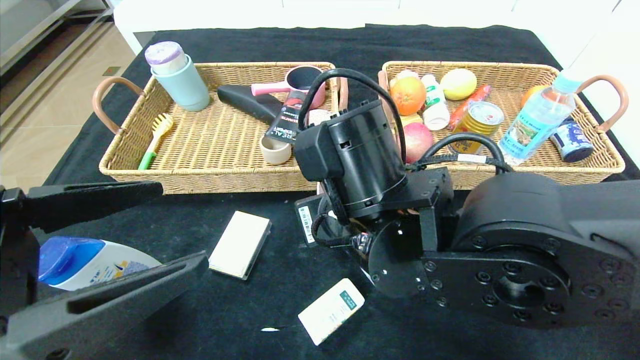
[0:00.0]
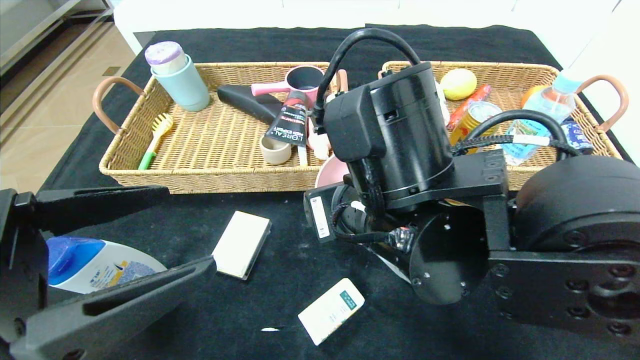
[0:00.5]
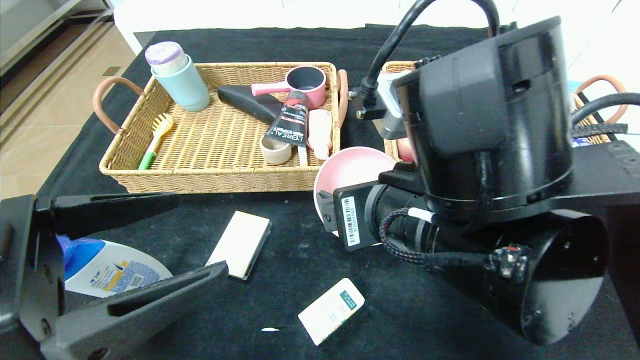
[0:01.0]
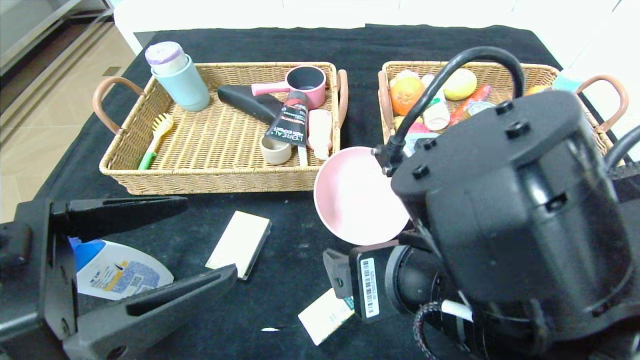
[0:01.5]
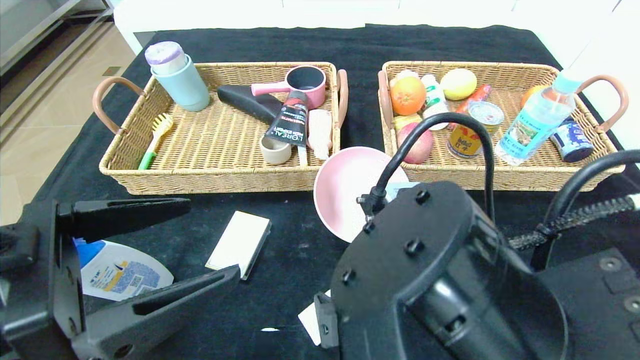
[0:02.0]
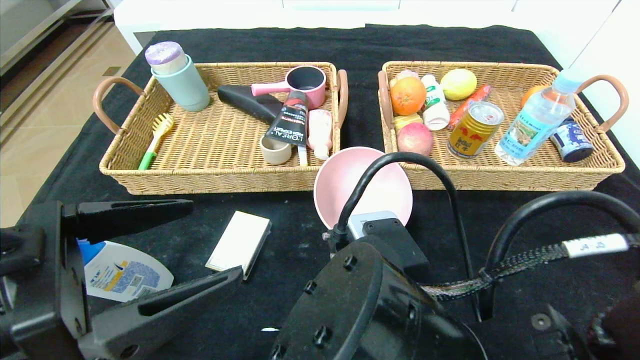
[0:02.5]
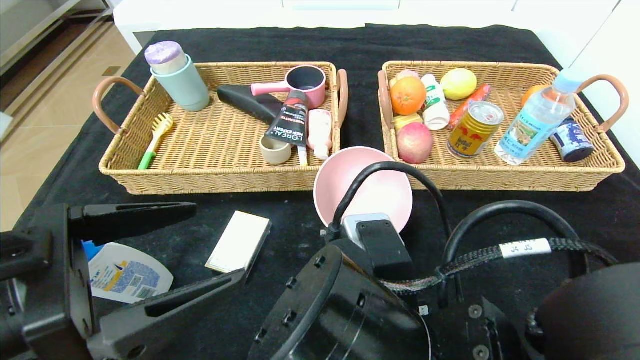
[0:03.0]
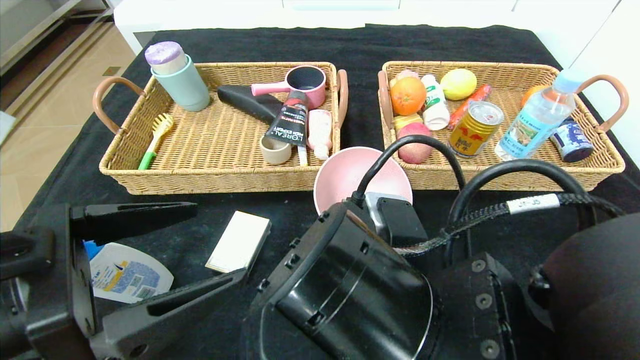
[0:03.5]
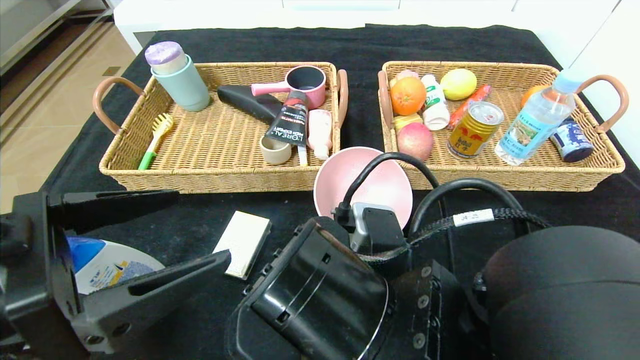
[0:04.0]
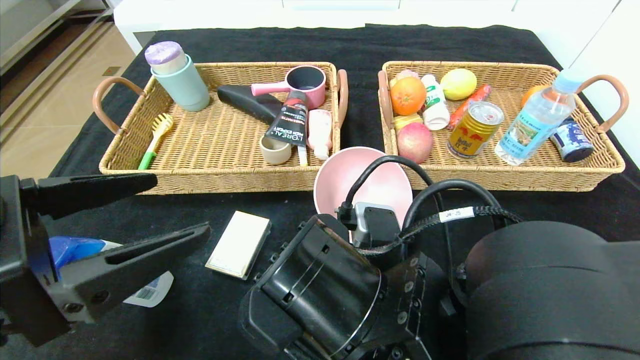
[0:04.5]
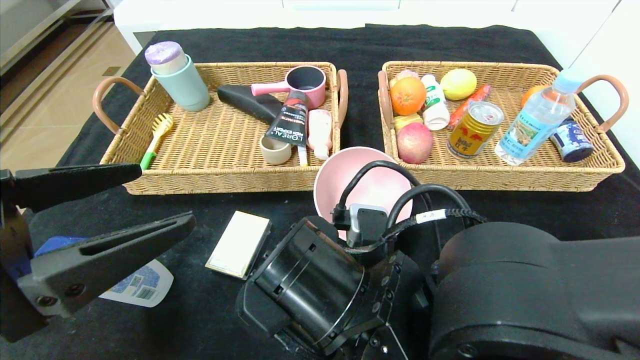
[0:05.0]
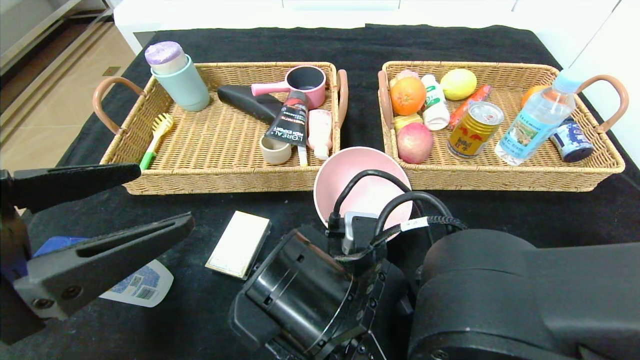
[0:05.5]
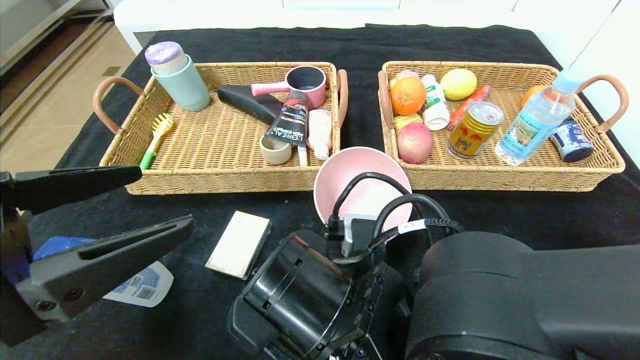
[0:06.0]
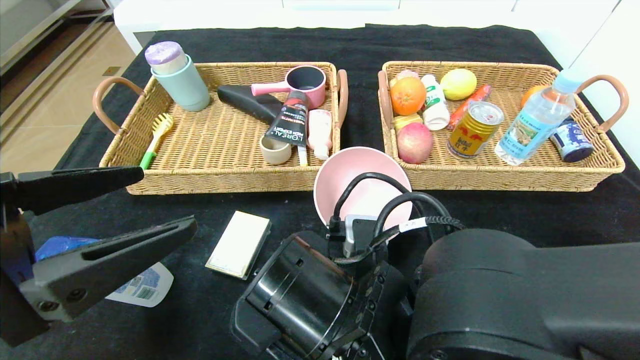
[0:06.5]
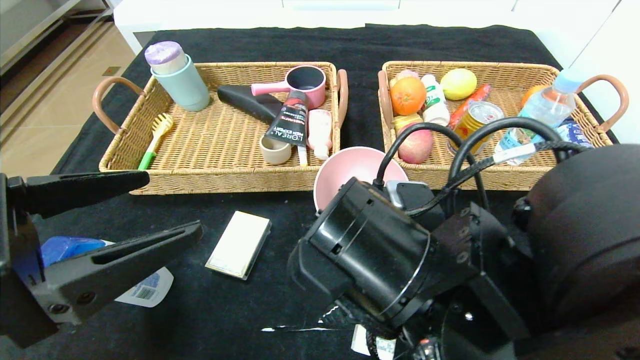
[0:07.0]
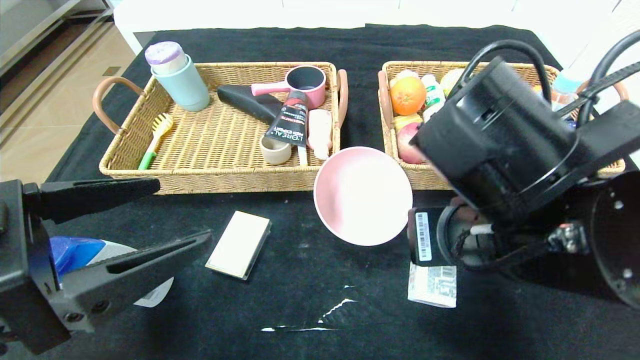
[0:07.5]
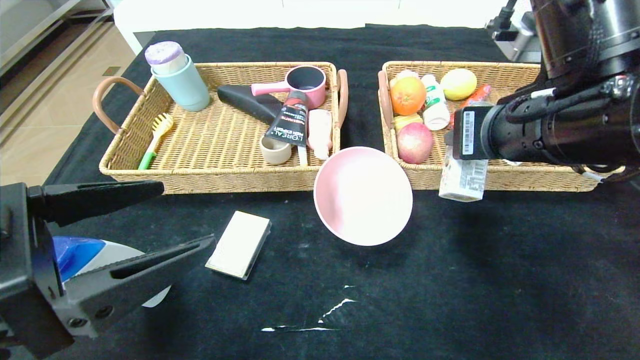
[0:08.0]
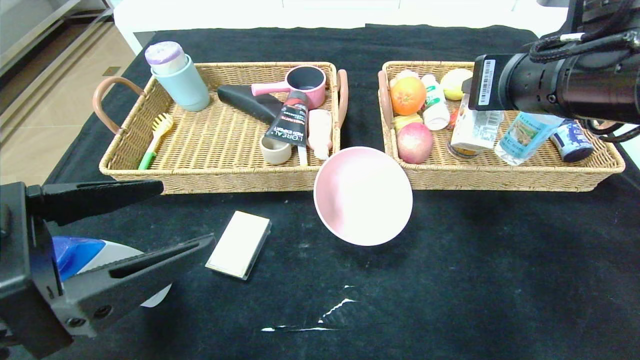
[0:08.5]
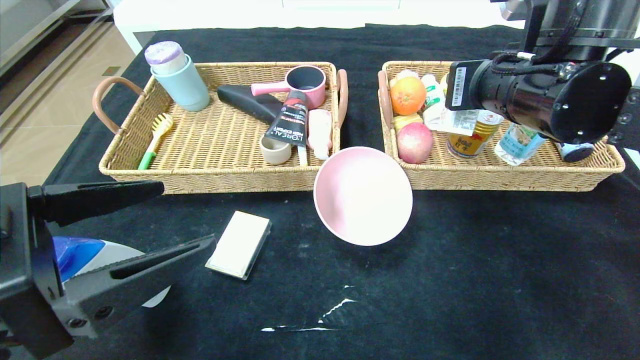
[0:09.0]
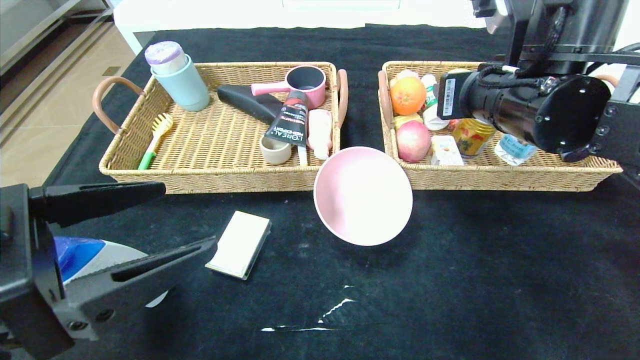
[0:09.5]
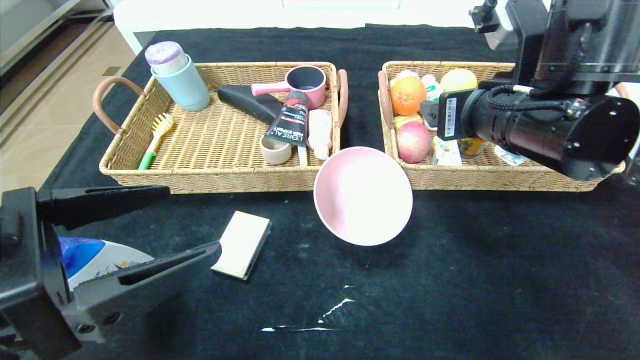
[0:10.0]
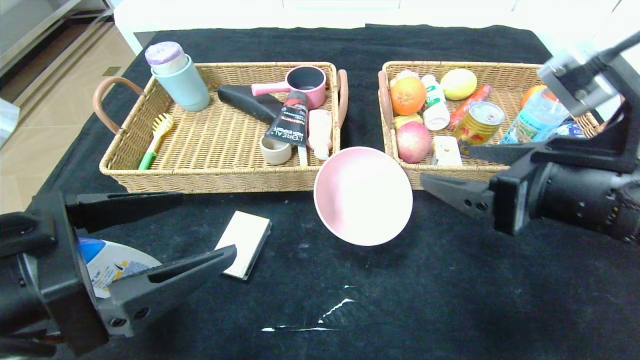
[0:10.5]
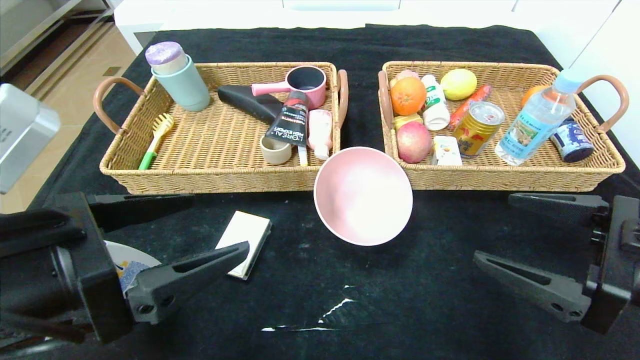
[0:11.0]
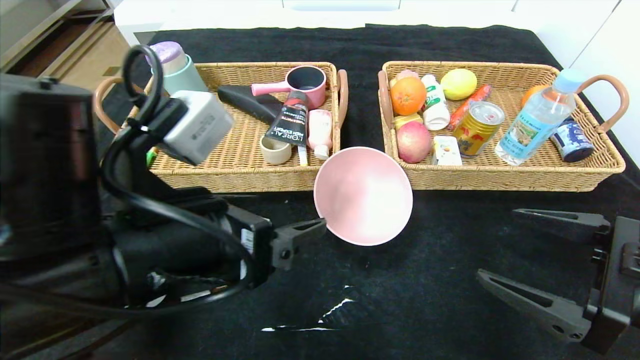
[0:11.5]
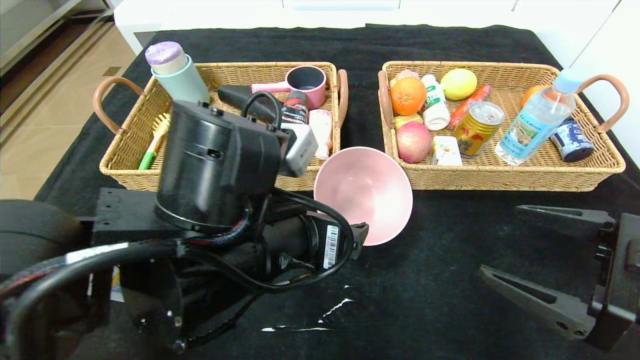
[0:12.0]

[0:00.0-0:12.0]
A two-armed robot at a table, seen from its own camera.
Step, 0:02.0 to 0:10.5: Pick up the square chewing gum and put it in the right basket.
0:00.0 to 0:02.0: The right gripper is displaced backward by roughly 10 cm, and opens its fingers.
0:02.0 to 0:04.0: The right gripper shifts by about 5 cm.
0:04.0 to 0:06.0: The right gripper closes up.
0:06.0 to 0:08.0: The right gripper shifts approximately 20 cm to the right, upward and forward.
0:08.0 to 0:10.0: The right gripper opens.
0:10.0 to 0:12.0: The left gripper moves to the right and forward, some 15 cm. The right gripper shifts about 20 cm backward, to the right and downward.

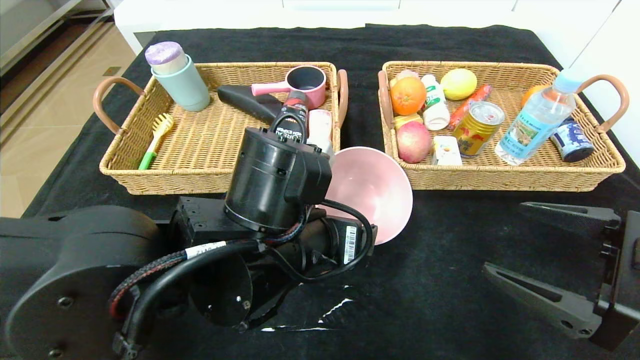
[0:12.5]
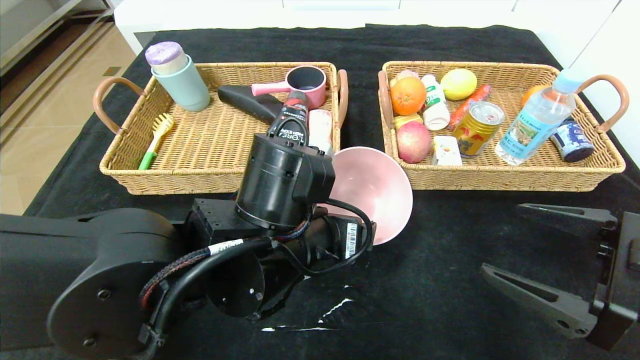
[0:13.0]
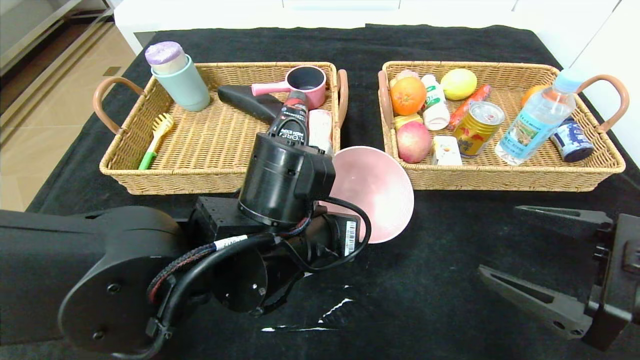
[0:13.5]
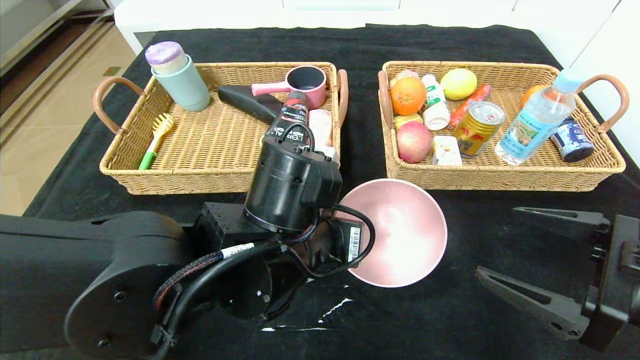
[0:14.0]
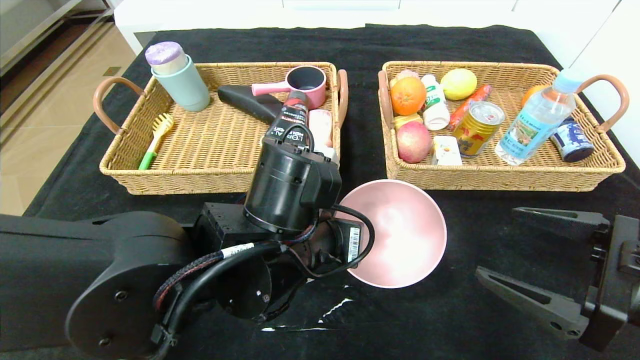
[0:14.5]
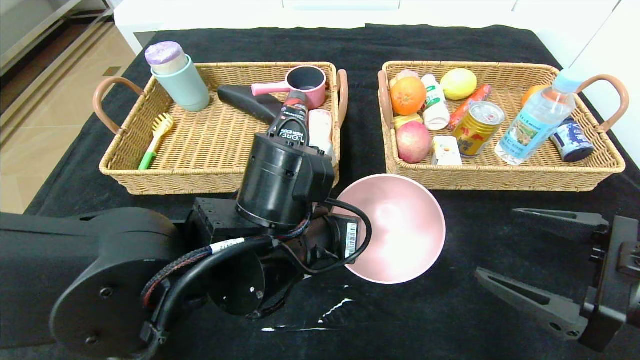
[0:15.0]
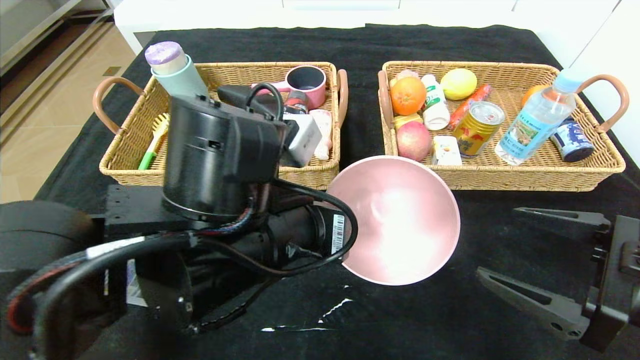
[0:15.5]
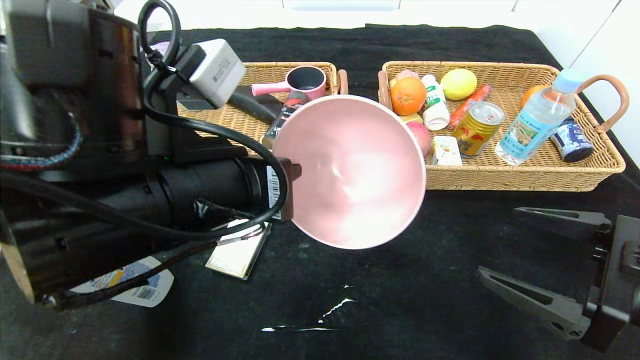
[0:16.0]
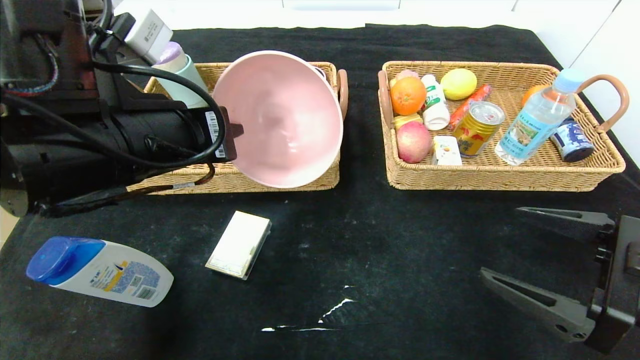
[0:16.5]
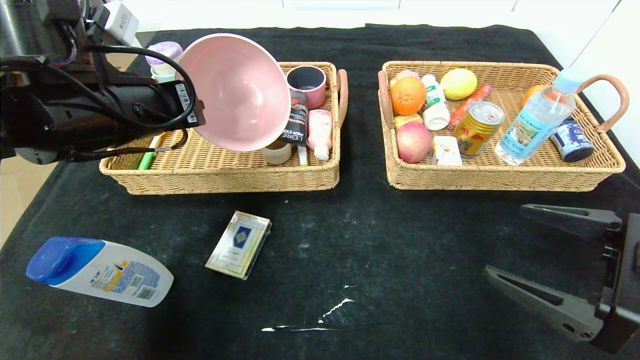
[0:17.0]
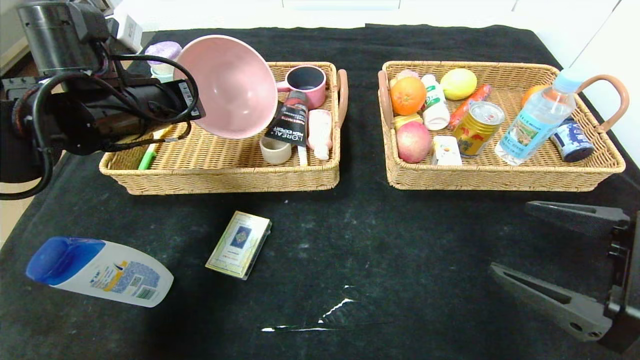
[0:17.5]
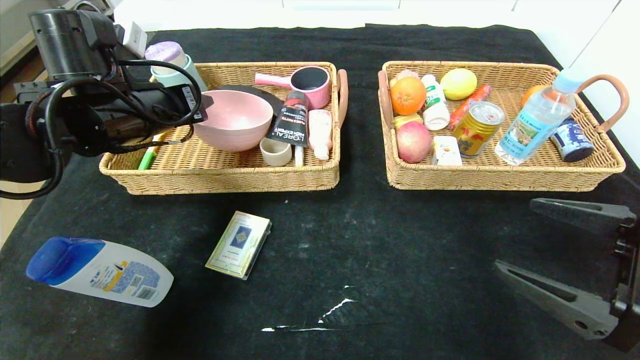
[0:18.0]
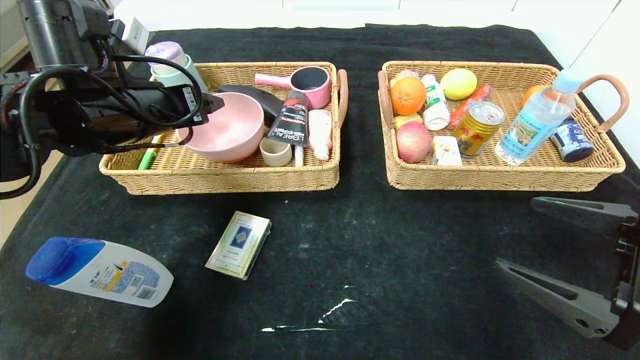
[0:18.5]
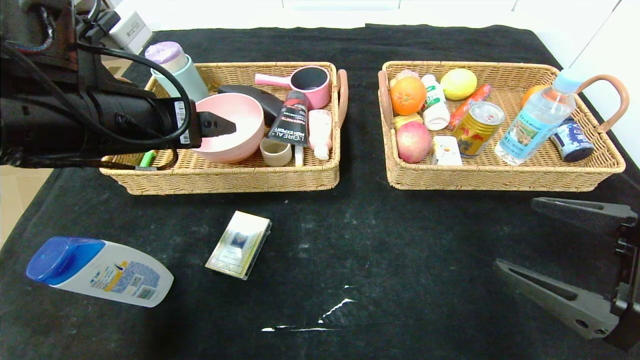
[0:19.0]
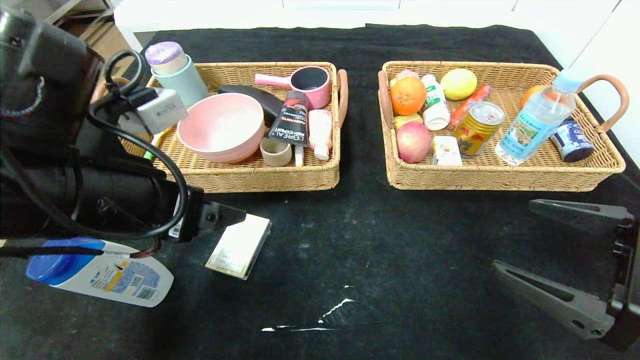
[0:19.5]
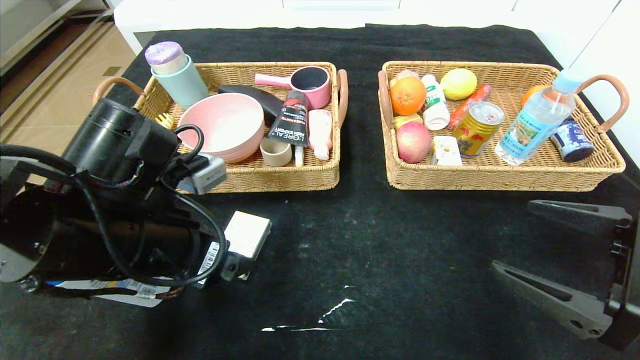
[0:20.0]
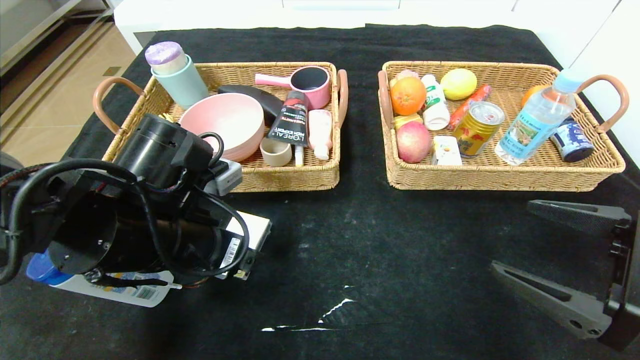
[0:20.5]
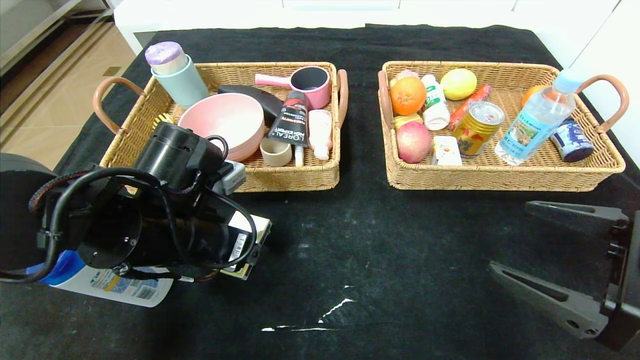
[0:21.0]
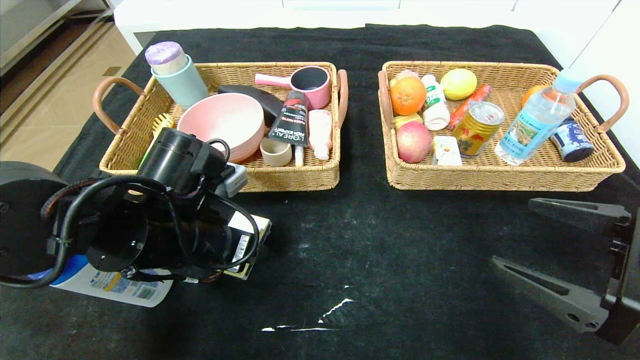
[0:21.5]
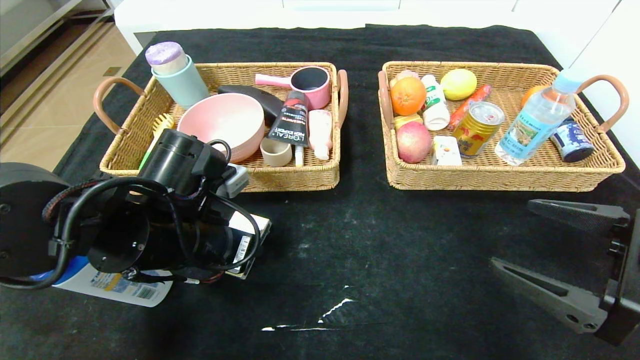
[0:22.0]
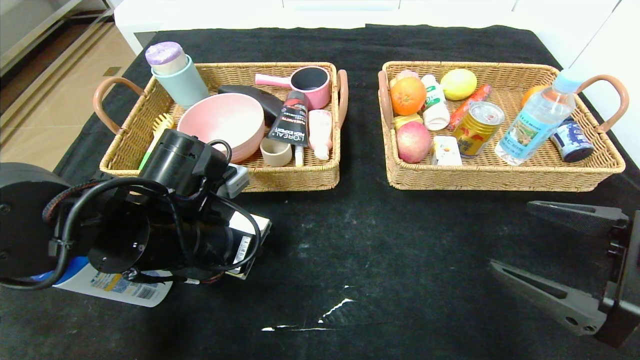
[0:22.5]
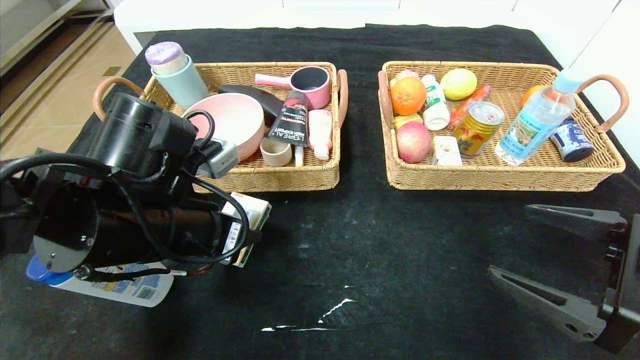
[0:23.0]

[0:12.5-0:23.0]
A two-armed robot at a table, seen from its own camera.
Step, 0:12.5 to 0:19.5: Pick up the pink bowl and put it in the left basket.
0:12.5 to 0:14.5: The left gripper closes its fingers.
0:14.5 to 0:16.5: The left gripper moves to the left and upward, some 15 cm.
0:16.5 to 0:19.0: The left gripper travels forward and back again, some 10 cm each way, and opens.
0:19.0 to 0:21.0: The left gripper moves downward, approximately 10 cm.
0:21.0 to 0:23.0: The left gripper closes its fingers.
